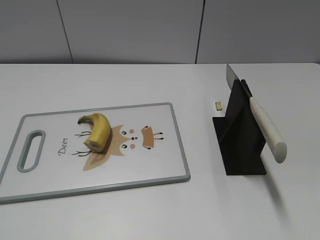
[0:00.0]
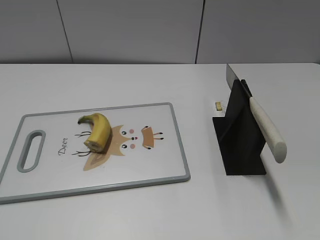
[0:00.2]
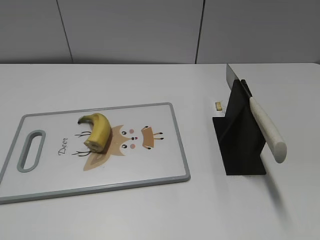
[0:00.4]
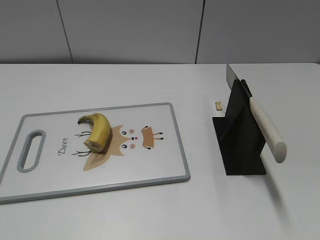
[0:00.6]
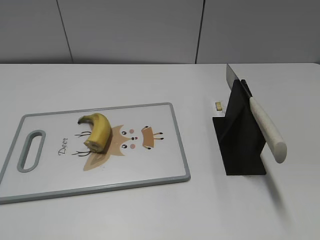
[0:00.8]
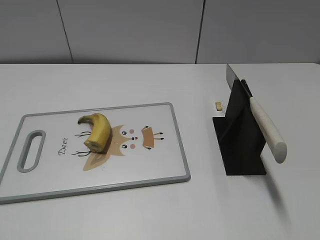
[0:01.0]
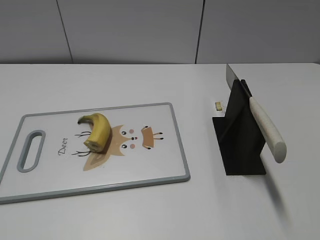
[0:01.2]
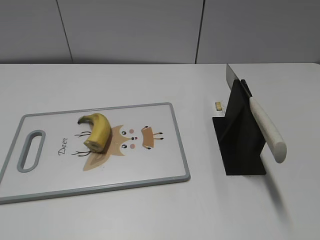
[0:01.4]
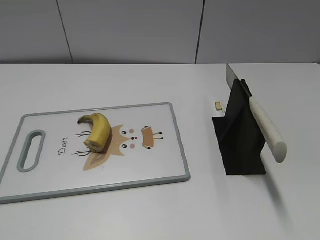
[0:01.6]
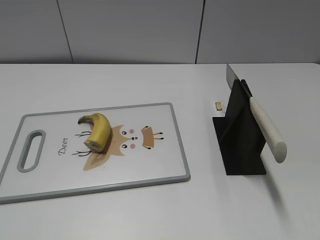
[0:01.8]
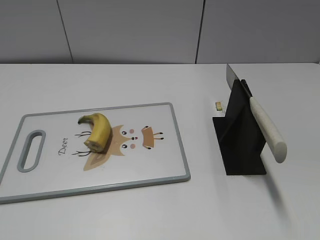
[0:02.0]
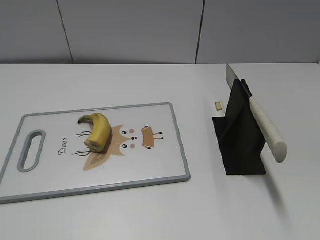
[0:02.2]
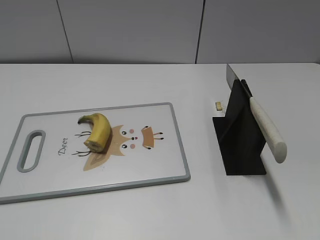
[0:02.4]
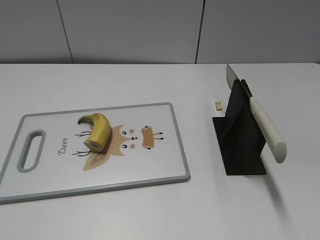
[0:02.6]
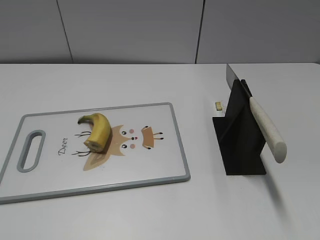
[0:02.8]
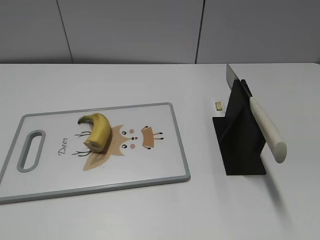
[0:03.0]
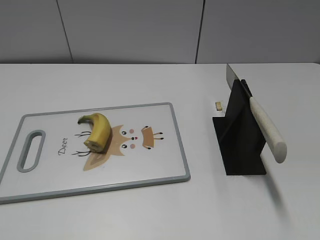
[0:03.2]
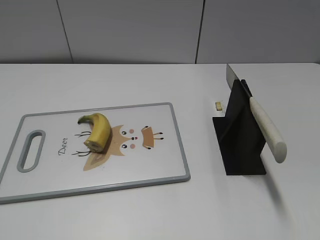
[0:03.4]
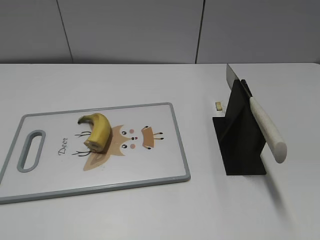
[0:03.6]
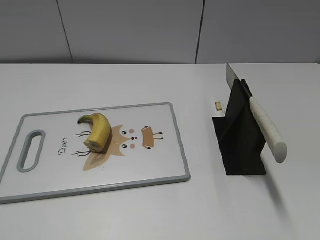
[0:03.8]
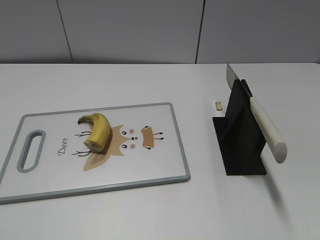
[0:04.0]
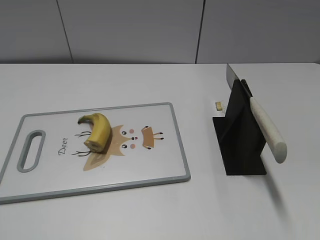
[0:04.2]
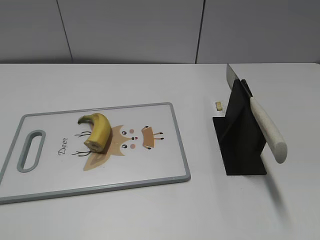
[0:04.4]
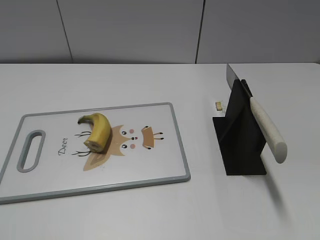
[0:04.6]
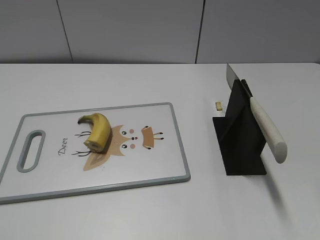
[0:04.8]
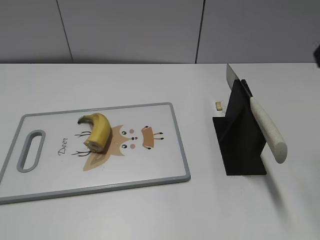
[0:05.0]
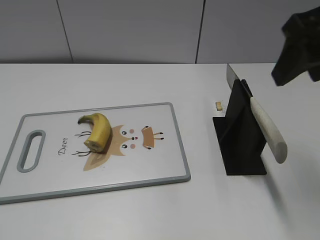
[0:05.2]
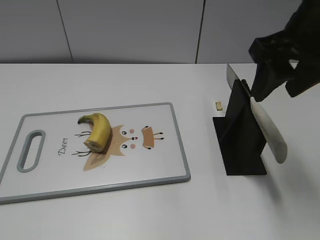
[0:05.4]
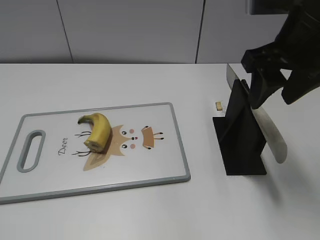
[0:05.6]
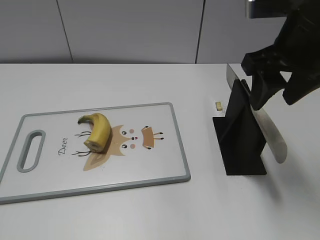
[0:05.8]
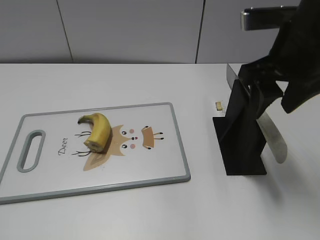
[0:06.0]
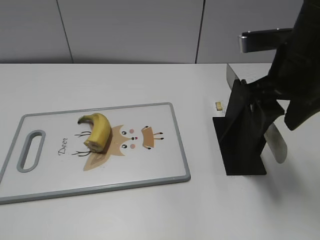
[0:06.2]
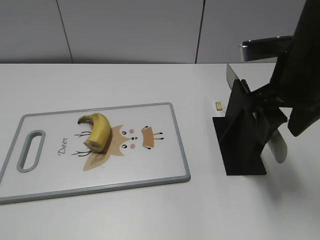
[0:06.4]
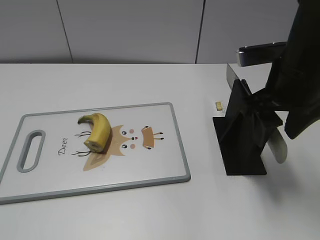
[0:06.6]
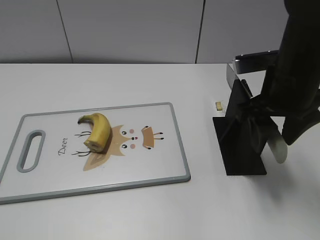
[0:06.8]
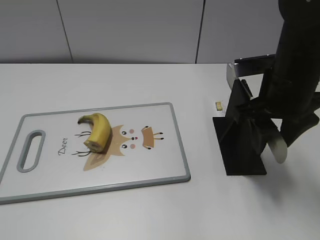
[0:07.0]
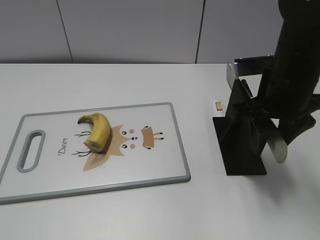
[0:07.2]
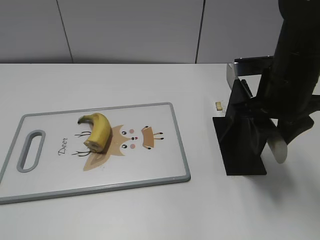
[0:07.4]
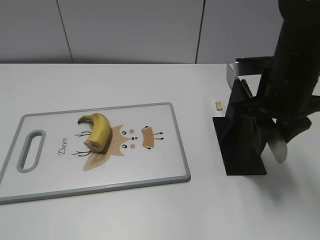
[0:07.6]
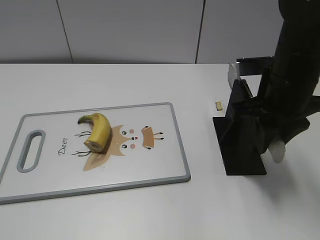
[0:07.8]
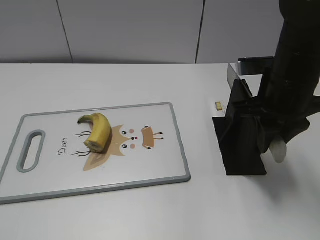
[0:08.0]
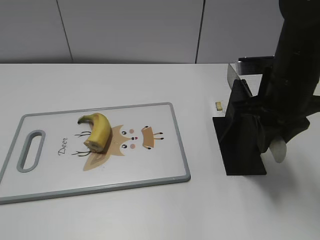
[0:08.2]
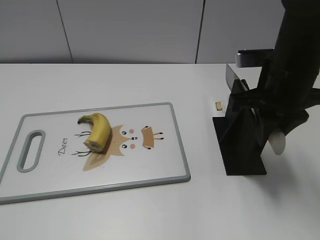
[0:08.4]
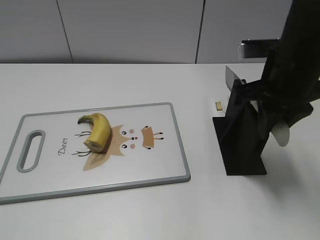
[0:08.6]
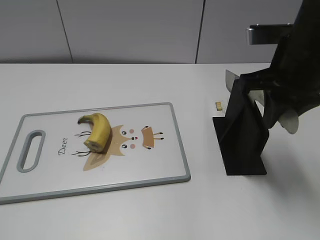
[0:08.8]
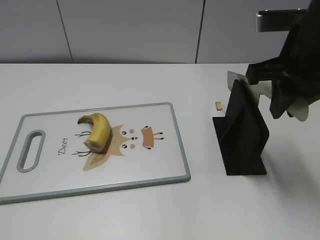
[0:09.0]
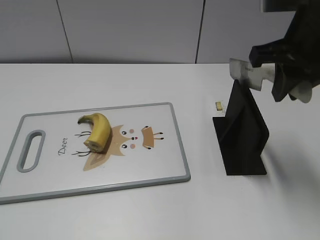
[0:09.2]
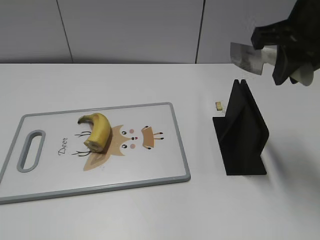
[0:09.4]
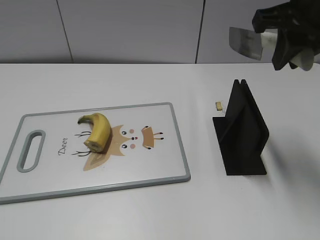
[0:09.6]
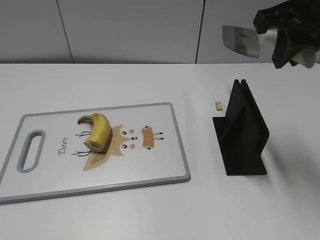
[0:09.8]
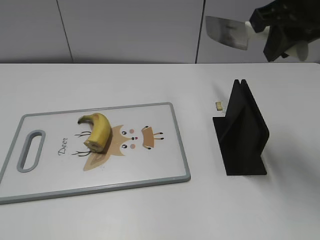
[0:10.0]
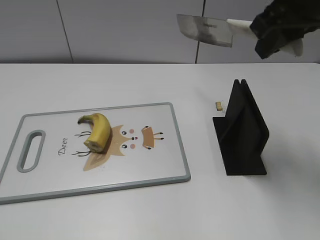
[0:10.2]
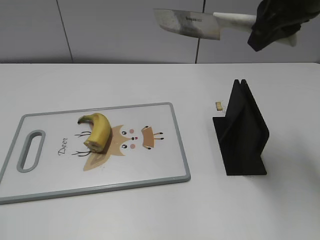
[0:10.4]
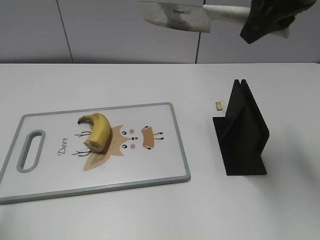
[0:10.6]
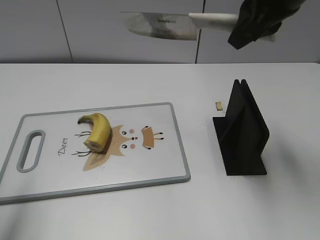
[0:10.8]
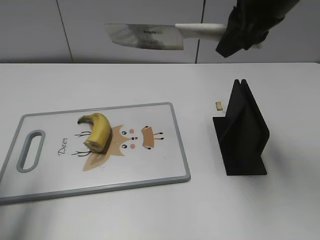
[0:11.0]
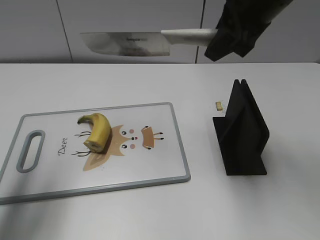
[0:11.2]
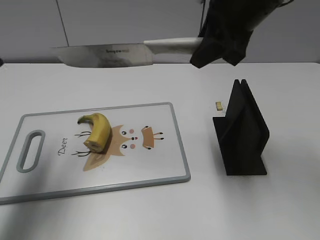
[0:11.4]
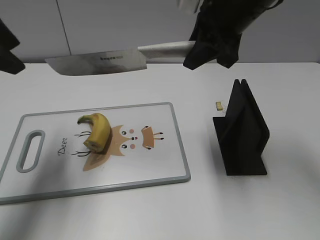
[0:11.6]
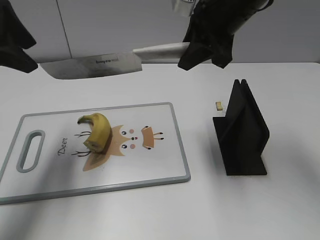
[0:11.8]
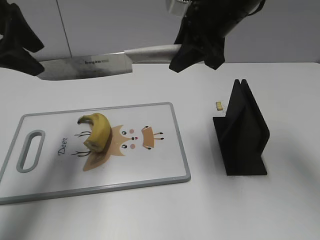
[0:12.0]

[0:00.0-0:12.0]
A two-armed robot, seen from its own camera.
Task of the whole recording: cut banana.
Step, 0:00.0 to 0:10.2: Grab the knife handle with your right hand.
0:04.4 to 0:06.0: The right gripper is displaced forward, to the left and downward by some 20 cm.
0:06.0 to 0:07.6: The right gripper goes some 5 cm downward, and closes up.
0:07.6 to 0:09.0: The right gripper goes approximately 5 cm upward.
0:09.0 to 0:10.4: The left gripper goes approximately 5 cm forward. The right gripper travels upward by approximately 5 cm.
0:10.4 to 0:12.0: The right gripper goes approximately 10 cm to the left, forward and downward. Meanwhile the left gripper goes roughly 25 cm forward.

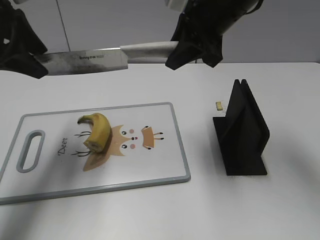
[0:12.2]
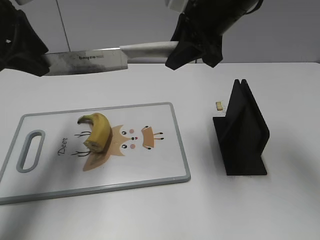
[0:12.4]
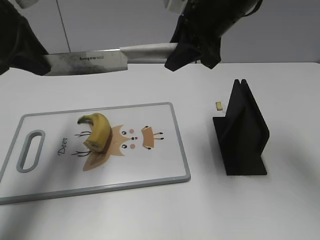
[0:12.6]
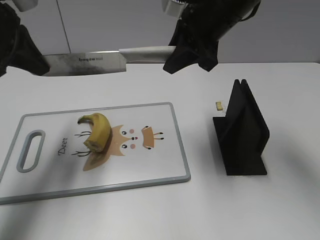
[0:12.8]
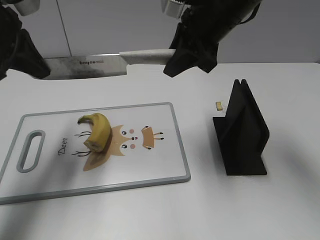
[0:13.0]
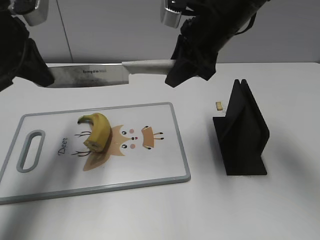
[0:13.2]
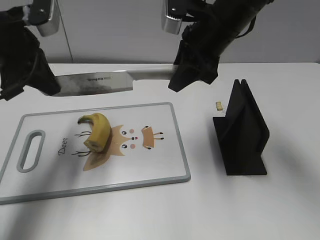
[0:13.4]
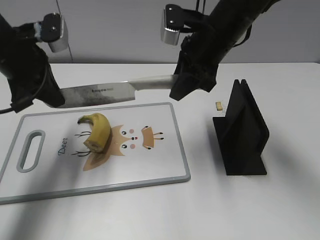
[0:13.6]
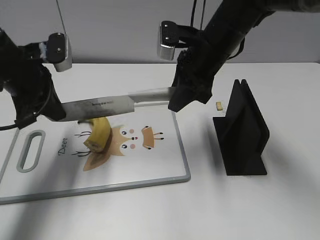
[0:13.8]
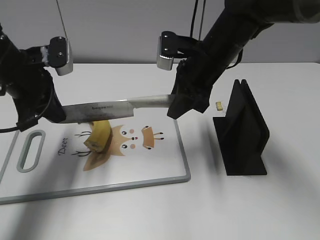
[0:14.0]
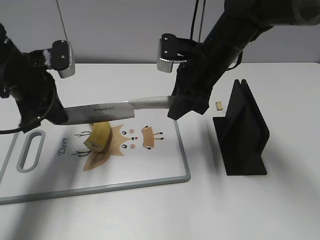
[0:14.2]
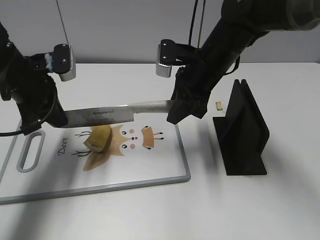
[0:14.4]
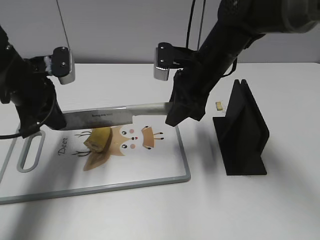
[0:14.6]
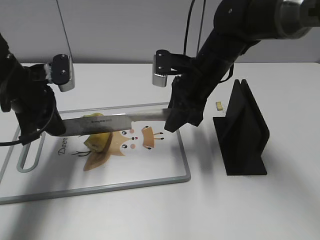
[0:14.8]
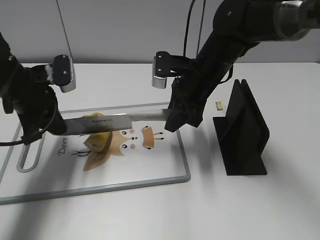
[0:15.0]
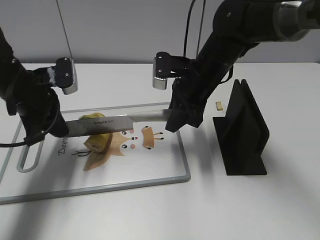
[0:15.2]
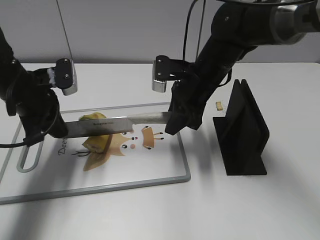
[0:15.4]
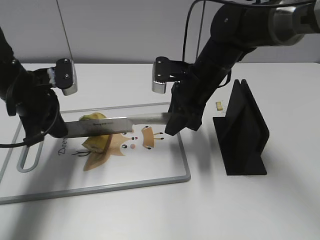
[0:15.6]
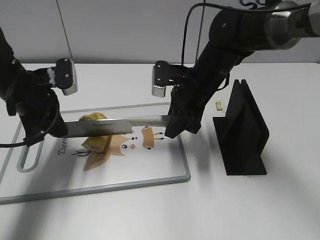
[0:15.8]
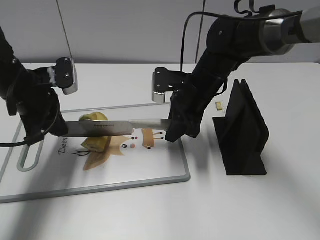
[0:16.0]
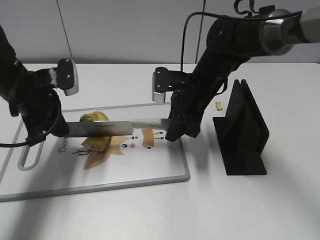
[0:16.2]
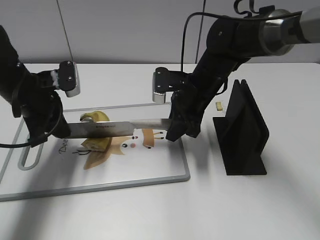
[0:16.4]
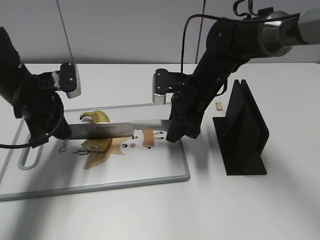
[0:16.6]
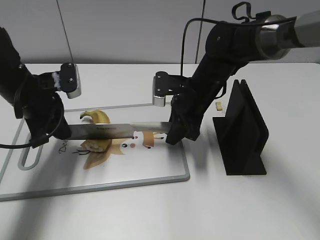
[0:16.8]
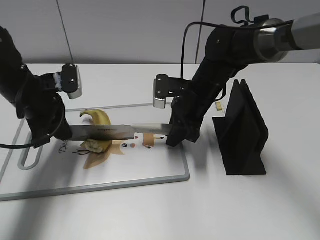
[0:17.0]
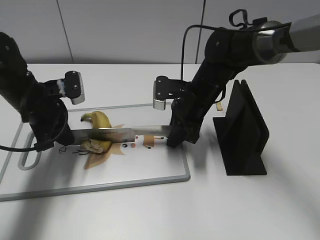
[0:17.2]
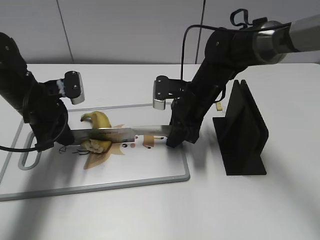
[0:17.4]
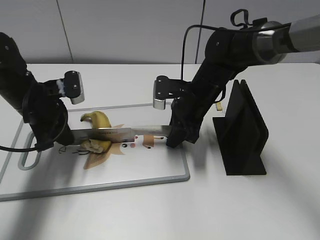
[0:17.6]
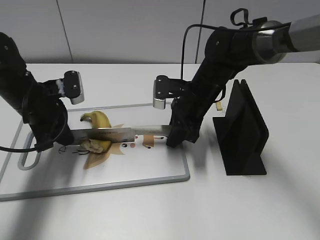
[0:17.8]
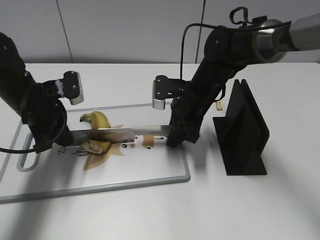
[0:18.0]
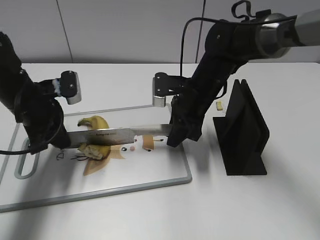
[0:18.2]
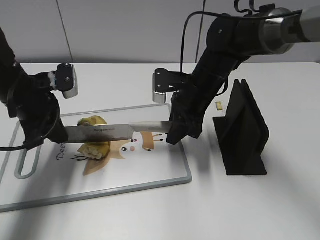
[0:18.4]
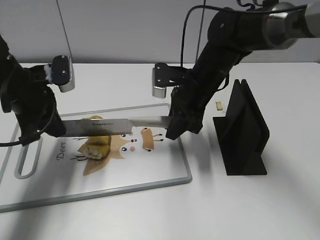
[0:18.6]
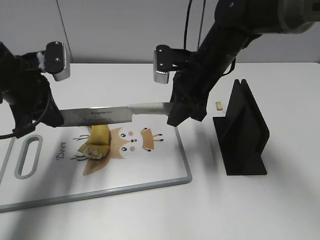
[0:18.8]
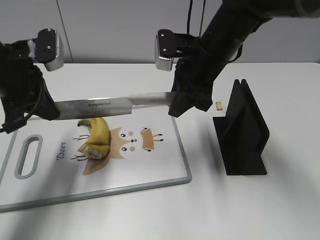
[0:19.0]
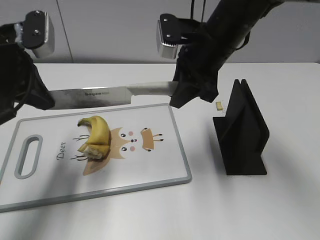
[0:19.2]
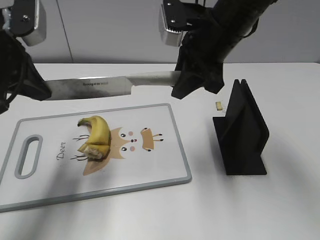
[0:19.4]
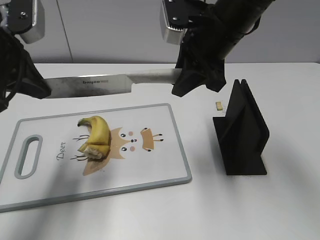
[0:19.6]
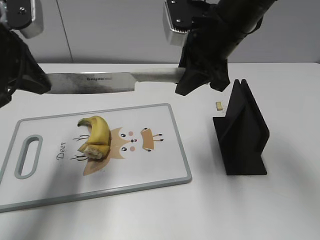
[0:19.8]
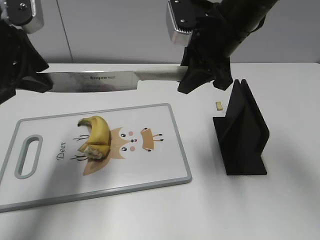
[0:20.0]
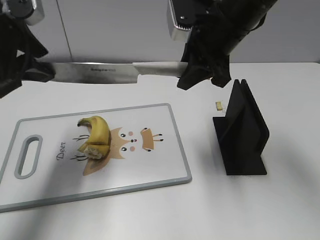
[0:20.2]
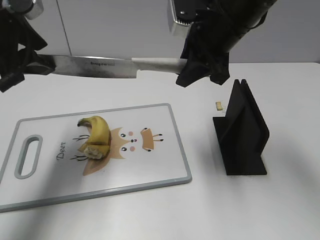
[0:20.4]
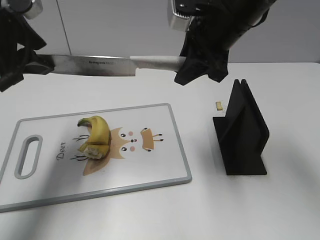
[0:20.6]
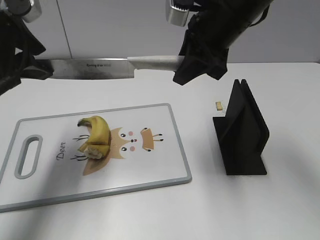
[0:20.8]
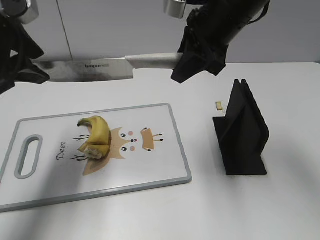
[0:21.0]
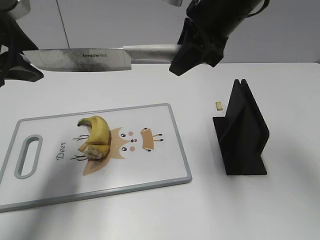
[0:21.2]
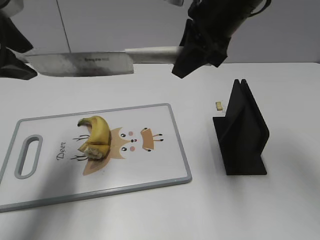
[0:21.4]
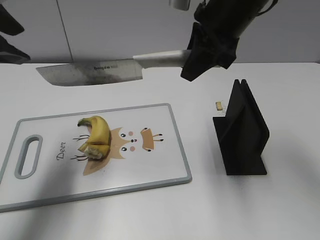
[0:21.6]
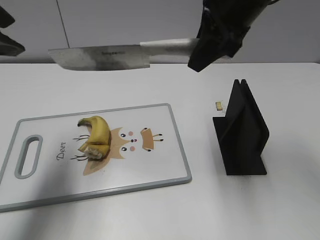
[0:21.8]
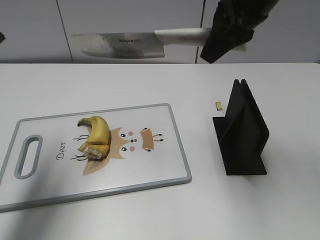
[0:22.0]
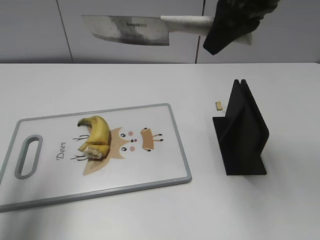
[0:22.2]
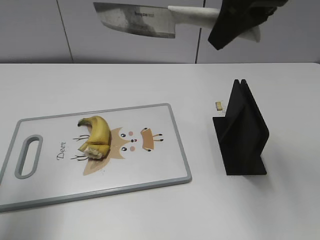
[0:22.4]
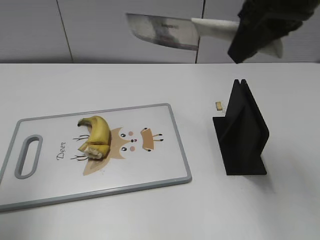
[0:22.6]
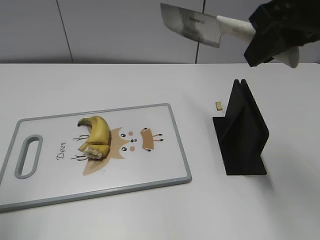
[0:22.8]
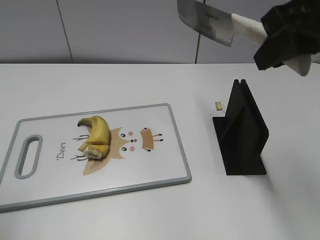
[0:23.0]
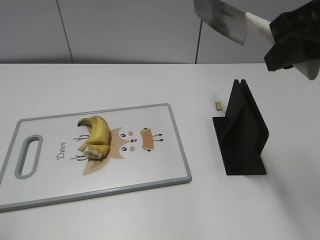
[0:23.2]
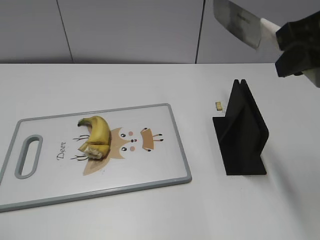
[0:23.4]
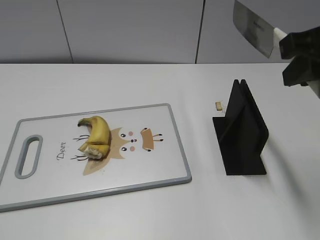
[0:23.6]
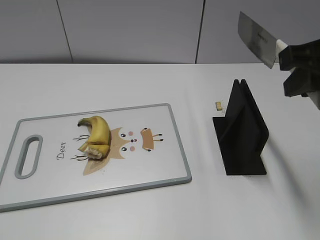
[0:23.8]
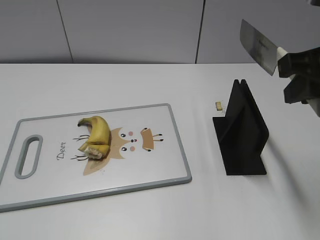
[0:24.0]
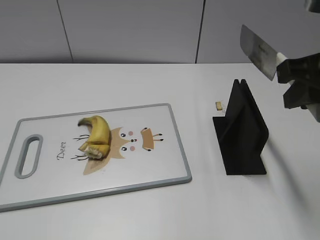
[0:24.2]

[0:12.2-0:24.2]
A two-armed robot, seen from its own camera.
Task of the whole recording: cut banana.
Step, 0:12.2 to 0:16.2: Lift the knife with your right hand.
Step, 0:16.4 to 0:22.4: Cut the banana with your right hand.
0:12.2 to 0:13.8: Both grippers travel together downward, roughly 10 cm. The left gripper closes its fingers.
0:13.8 to 0:15.2: The right gripper travels downward by some 5 cm.
0:15.2 to 0:18.2: The grippers move only a little.
0:18.2 to 0:19.8: The grippers both shift upward by some 15 cm.
0:19.8 to 0:21.2: The left gripper opens up.
0:21.2 to 0:22.6: The left gripper moves backward and to the left, approximately 10 cm. Meanwhile the right gripper travels backward, upward and to the right by roughly 10 cm.
0:22.6 to 0:24.2: The right gripper shifts approximately 10 cm backward, to the right and downward, while the left gripper shifts about 20 cm backward.
